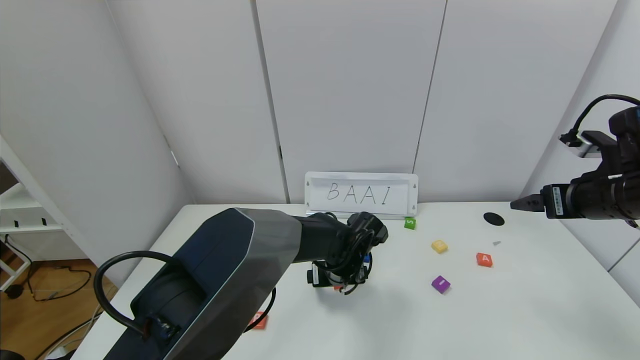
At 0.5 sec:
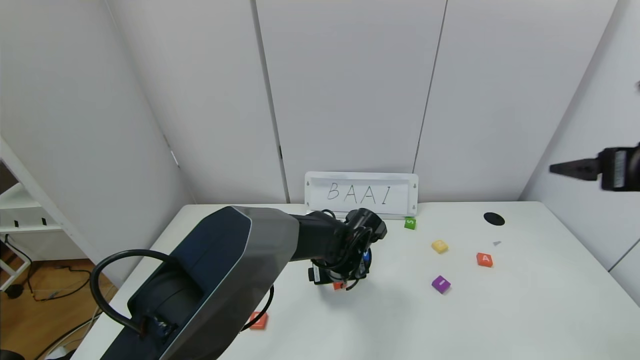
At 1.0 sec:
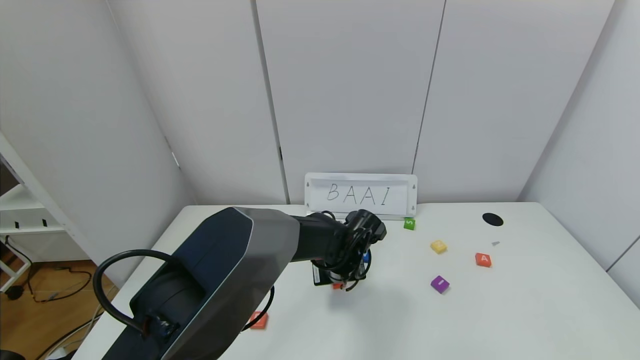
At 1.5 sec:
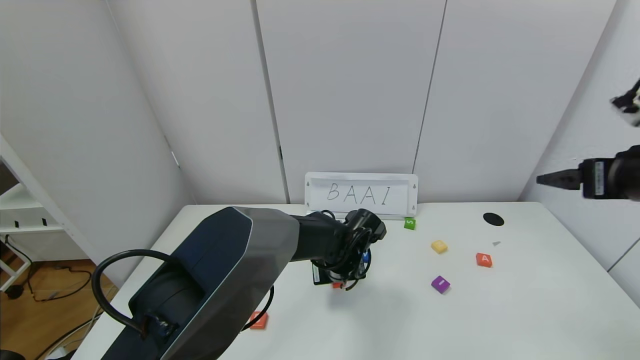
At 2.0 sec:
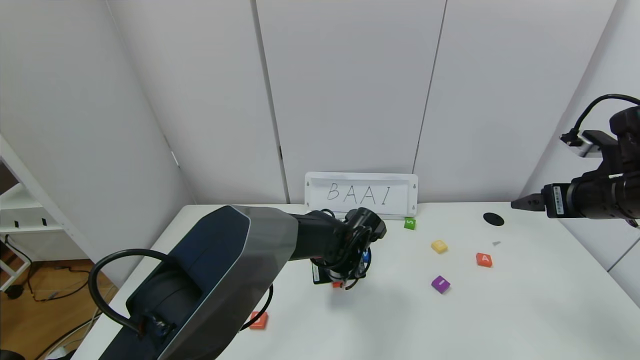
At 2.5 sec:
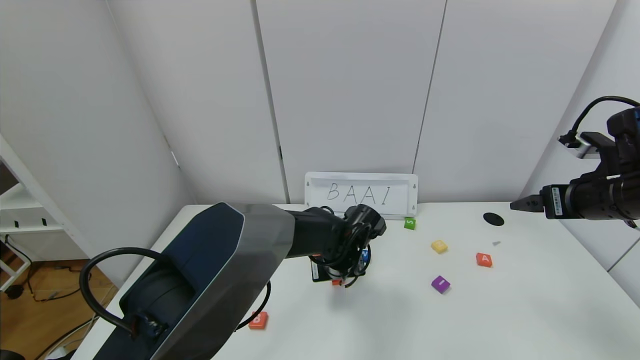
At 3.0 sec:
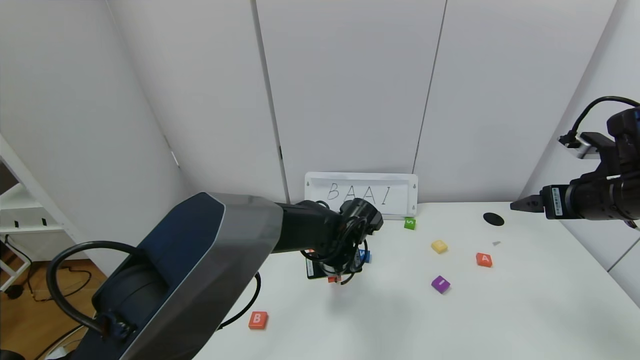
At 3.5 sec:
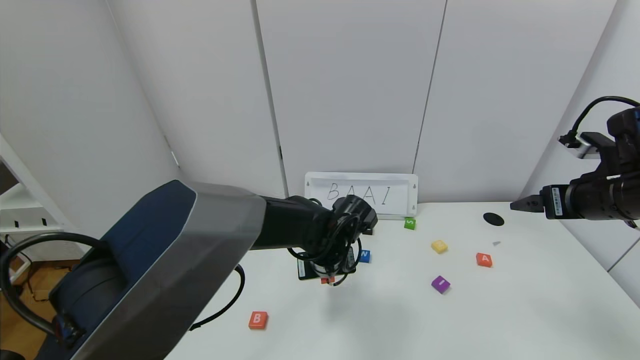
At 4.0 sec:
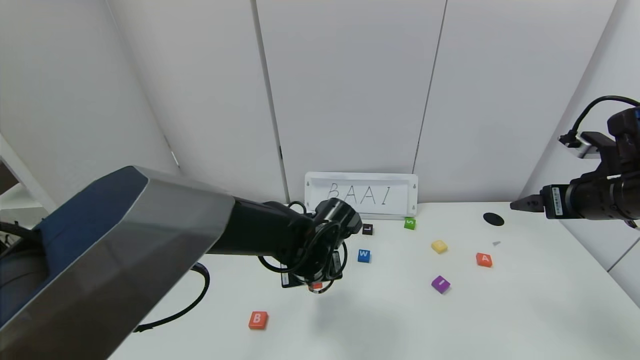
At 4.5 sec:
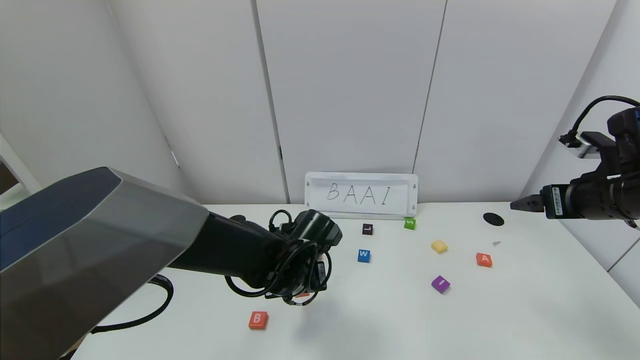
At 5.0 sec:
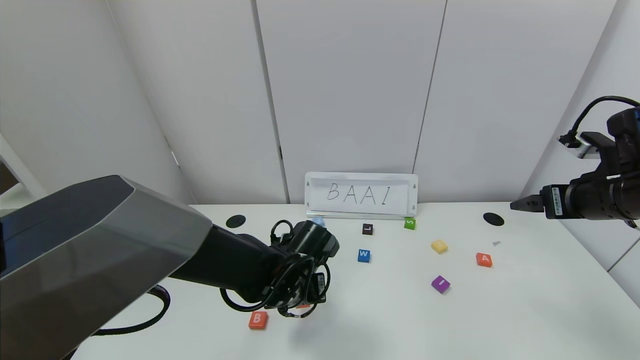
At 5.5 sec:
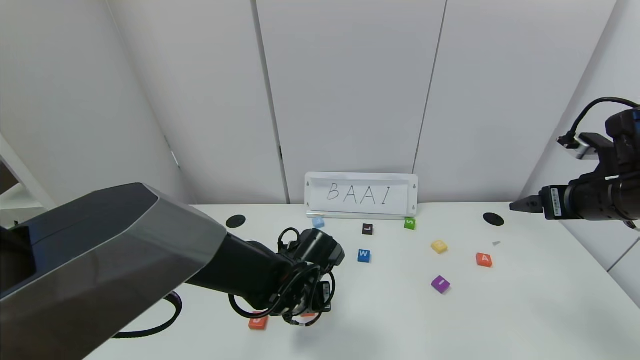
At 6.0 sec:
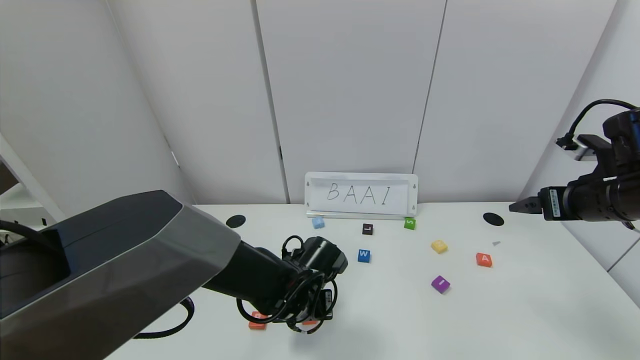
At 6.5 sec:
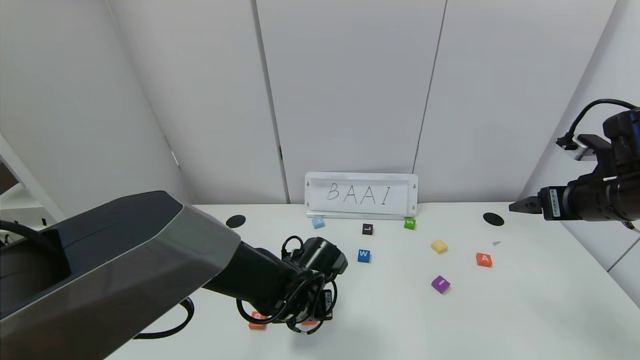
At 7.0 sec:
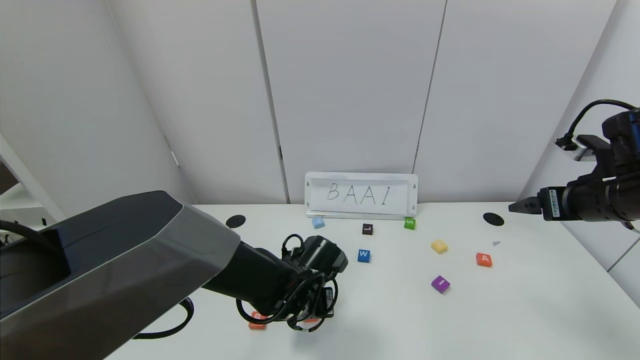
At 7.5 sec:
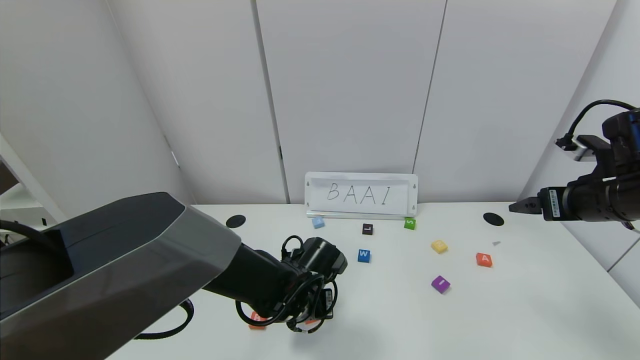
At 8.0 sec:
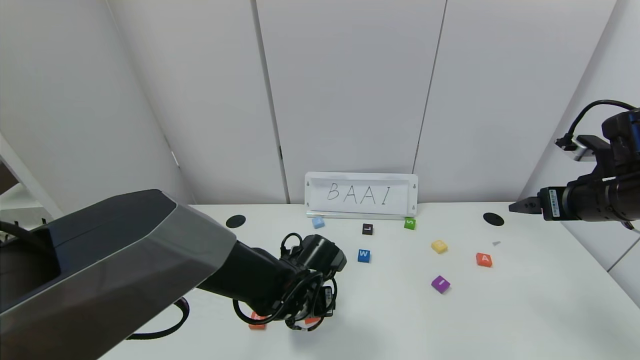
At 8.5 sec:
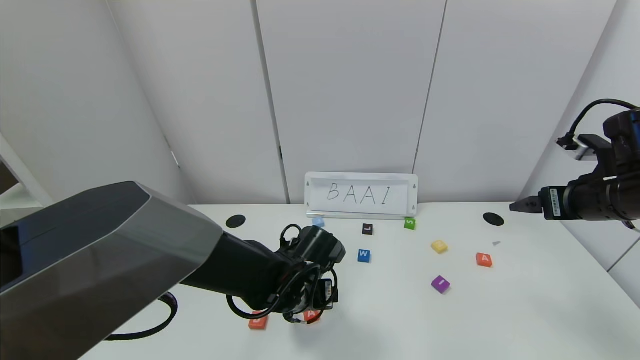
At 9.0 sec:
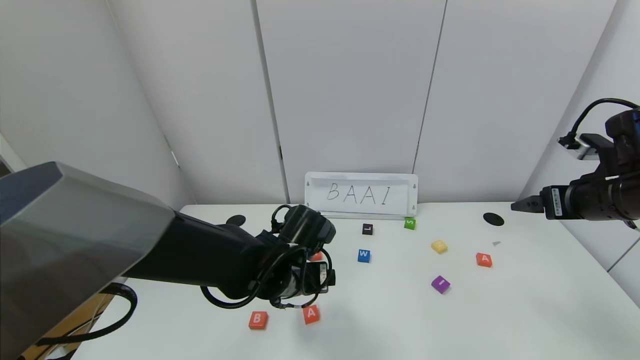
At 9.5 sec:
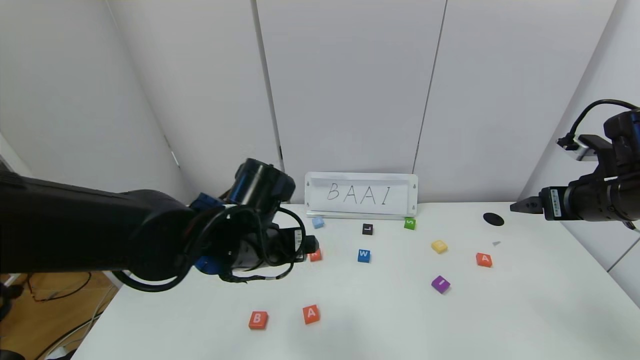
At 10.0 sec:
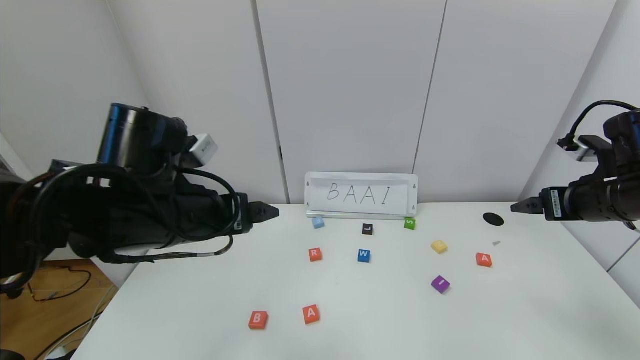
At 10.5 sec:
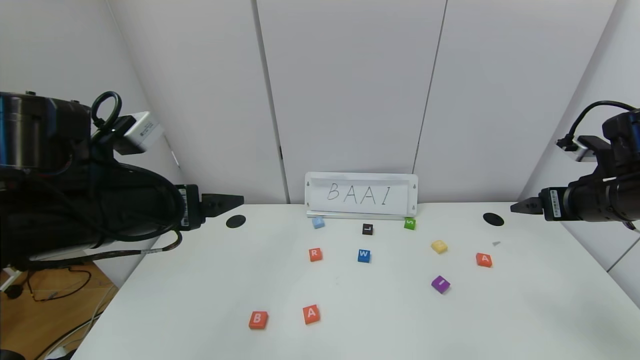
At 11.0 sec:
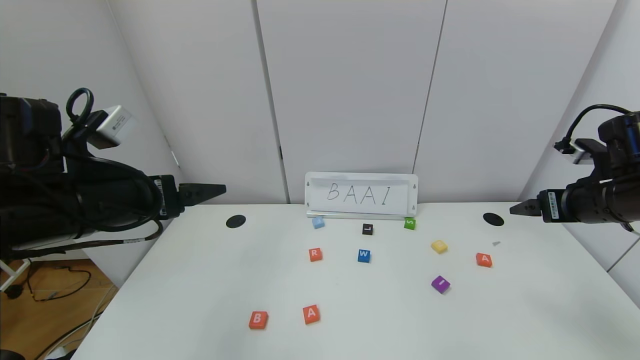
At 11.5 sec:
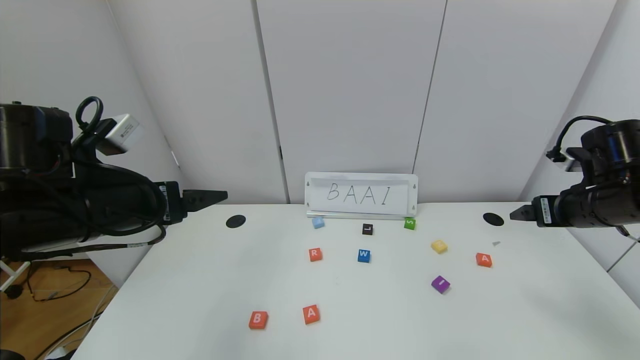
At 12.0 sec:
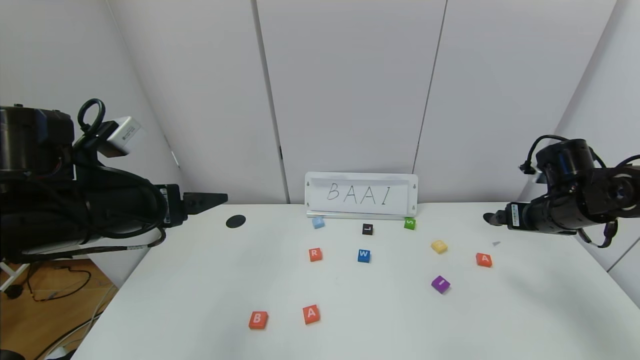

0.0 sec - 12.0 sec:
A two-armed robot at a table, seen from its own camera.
Task of the whole recording: use the gripper to find blocks with the letters b, a, a, and i on the table and arrange them into BAAI, then find r and N and turn the arranged baai into brian.
Step, 0.0 sec - 8.0 sec: Place the first block A in the second location.
0.0 sec - 2.0 sec: The left gripper closes its fingers. The right gripper goes backward and returns, some 25 cm each way.
2.0 sec - 4.0 sec: The left gripper is displaced to the left by about 5 cm.
4.0 sec - 6.0 sec: The left gripper shifts some 5 cm downward.
6.0 sec - 8.0 sec: The left gripper opens its fingers.
8.0 sec - 10.0 sec: The left gripper goes roughly 20 cm upward and to the left.
10.0 sec - 12.0 sec: The left gripper is displaced to the left by some 10 cm. Meanwhile the right gripper is displaced downward and forward by roughly 10 cm.

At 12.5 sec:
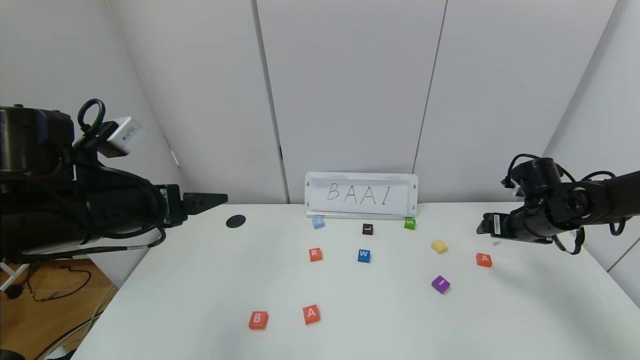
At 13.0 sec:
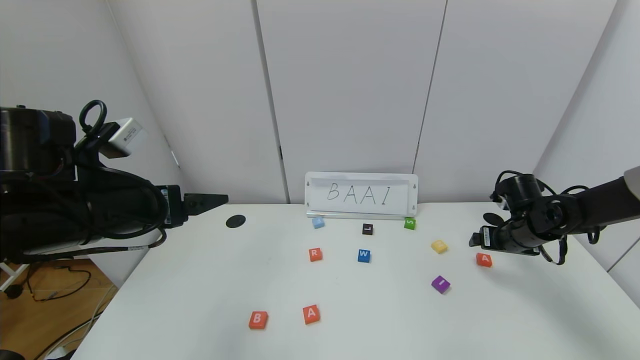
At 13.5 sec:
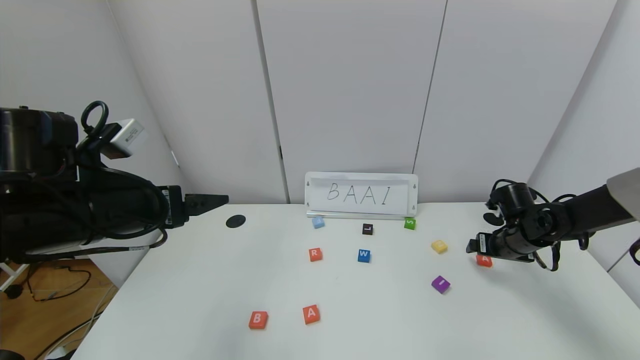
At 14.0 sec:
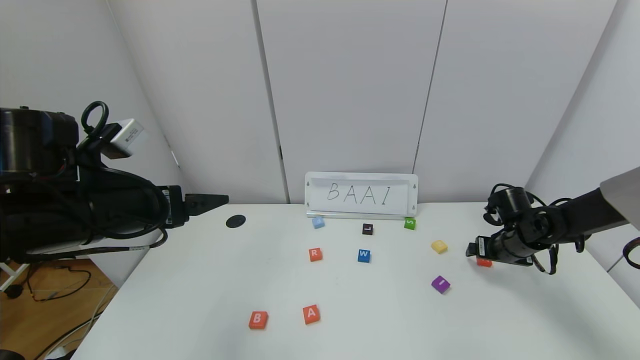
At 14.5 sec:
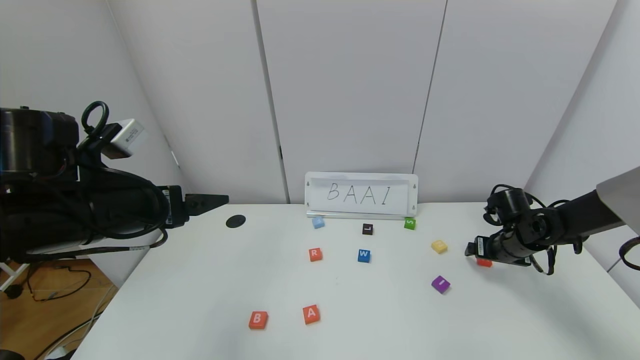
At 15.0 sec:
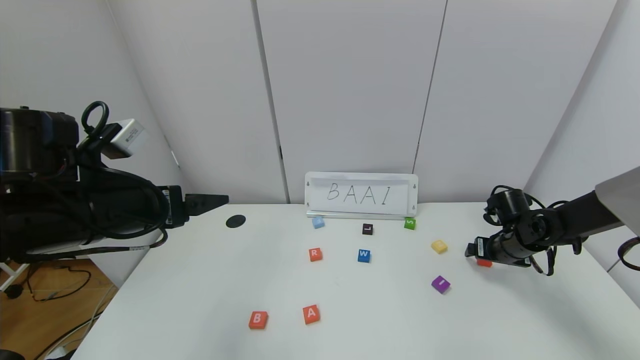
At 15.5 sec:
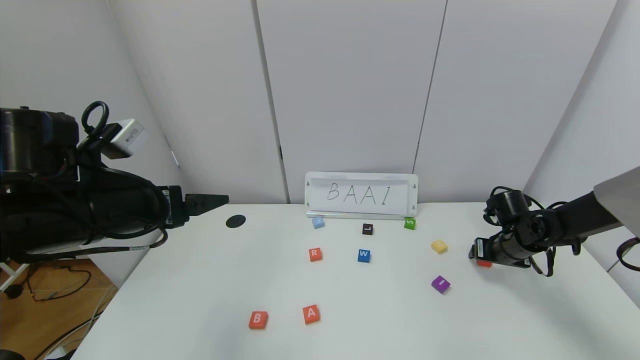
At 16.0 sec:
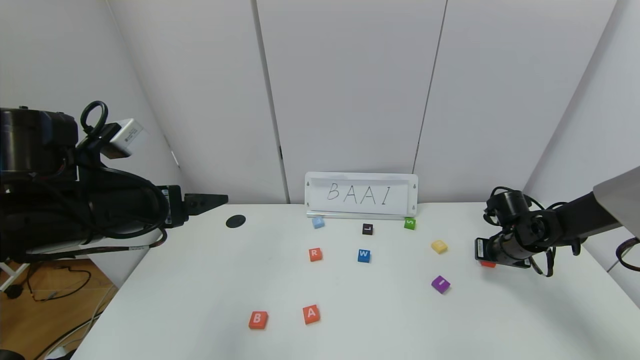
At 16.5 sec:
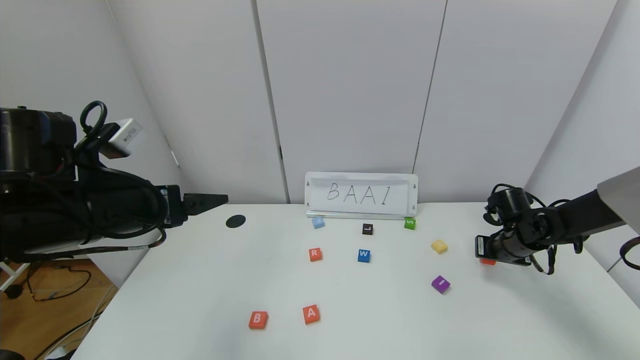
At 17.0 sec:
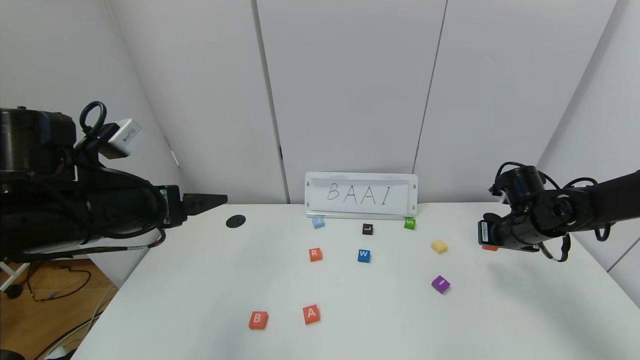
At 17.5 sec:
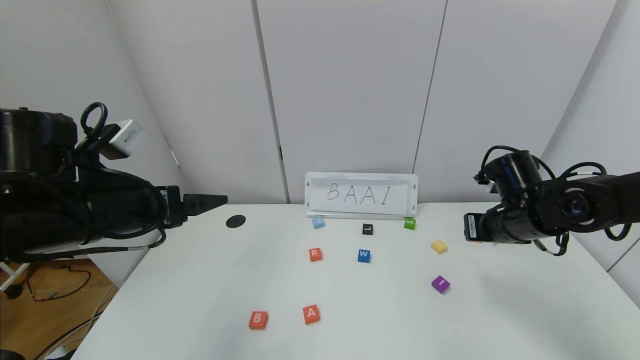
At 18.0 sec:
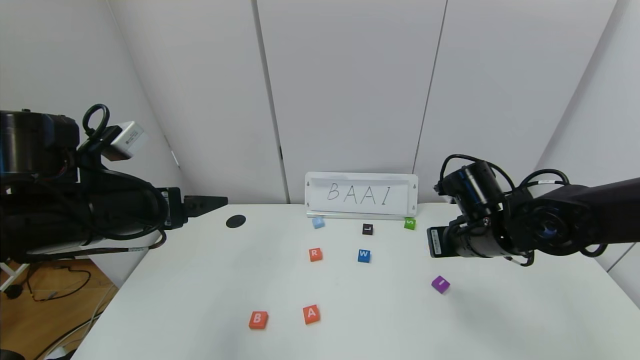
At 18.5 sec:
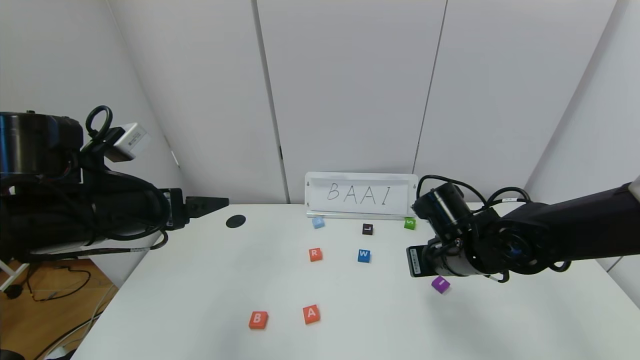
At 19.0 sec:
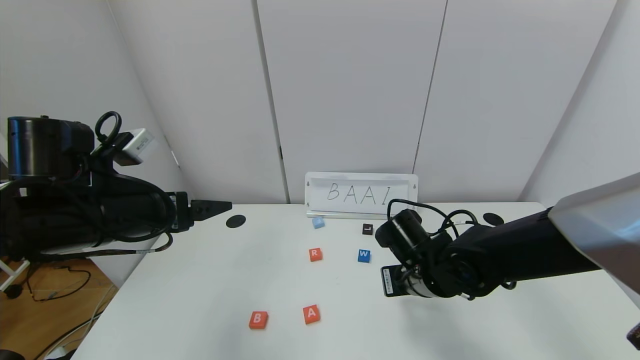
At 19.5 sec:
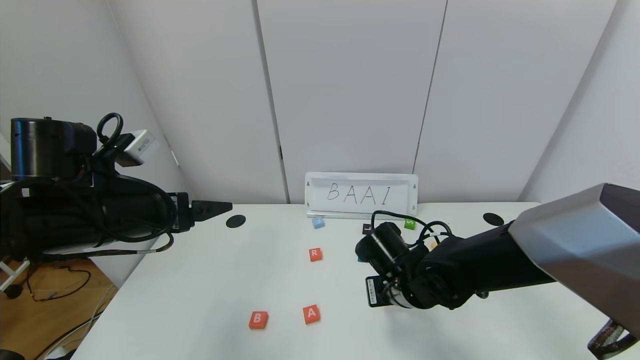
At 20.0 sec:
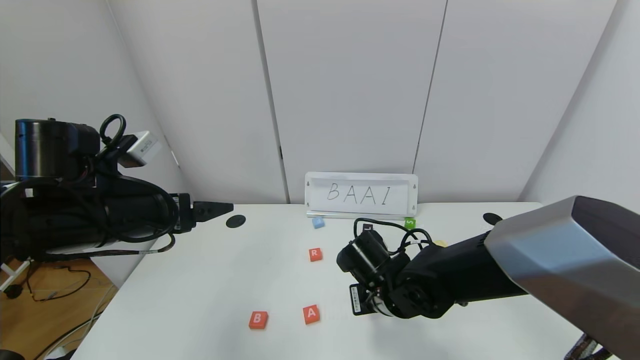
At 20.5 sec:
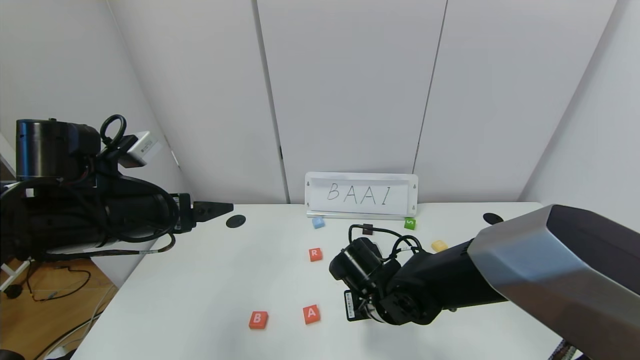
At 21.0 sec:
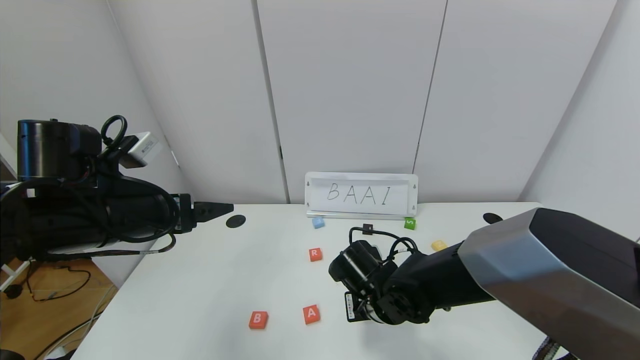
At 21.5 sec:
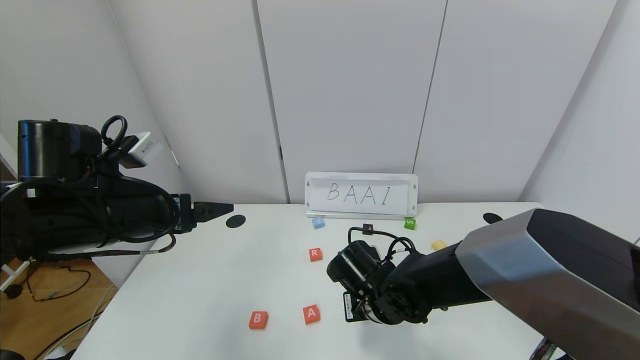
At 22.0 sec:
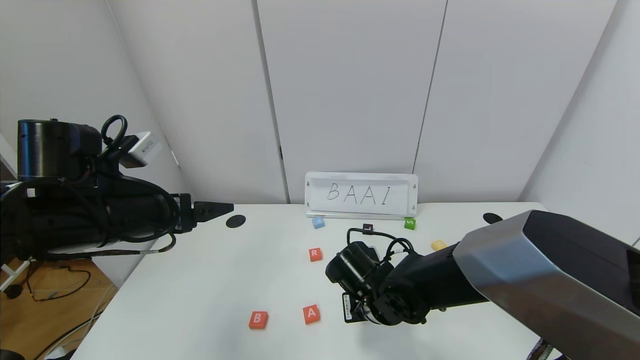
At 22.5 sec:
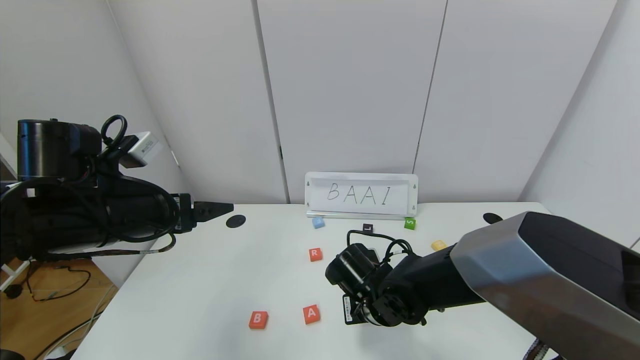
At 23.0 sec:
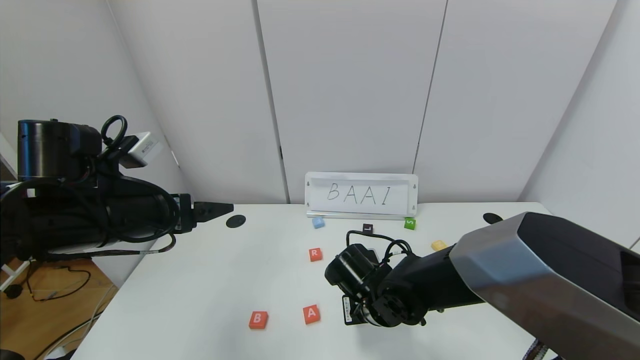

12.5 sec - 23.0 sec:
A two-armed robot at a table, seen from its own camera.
Task of the whole recording: use the gripper to find blocks with the letters b, a, a, and i on the table and arrange them into BAAI, then find r and N and turn the arranged baai into brian.
12.5 sec - 14.5 sec: The right gripper shifts some 5 cm downward.
16.5 sec - 19.0 sec: The right gripper shifts approximately 25 cm to the left and backward.
19.0 sec - 21.0 sec: The right gripper goes about 5 cm to the left.
21.0 sec - 23.0 sec: The right gripper opens.
